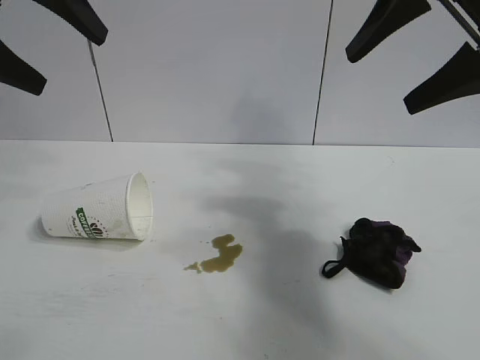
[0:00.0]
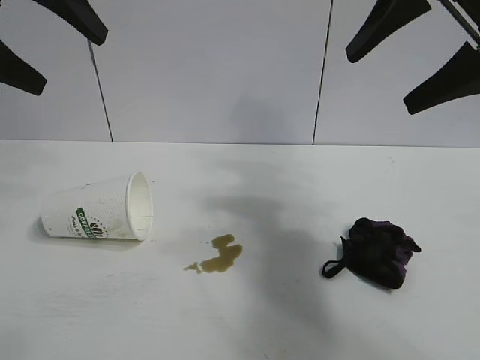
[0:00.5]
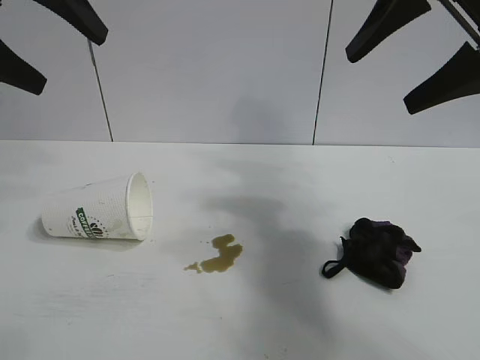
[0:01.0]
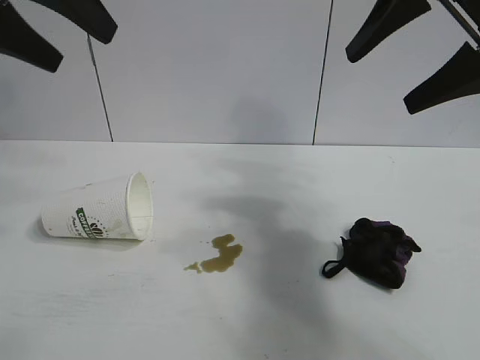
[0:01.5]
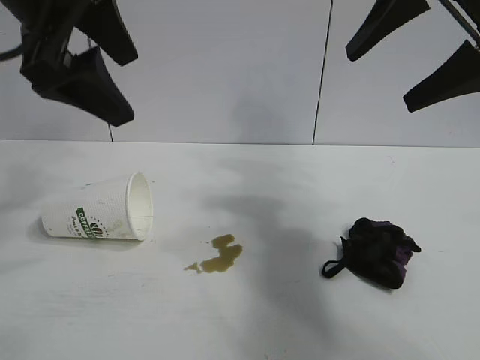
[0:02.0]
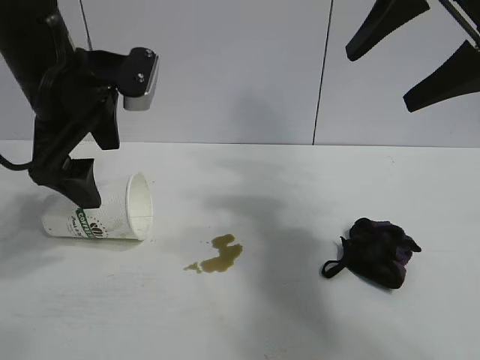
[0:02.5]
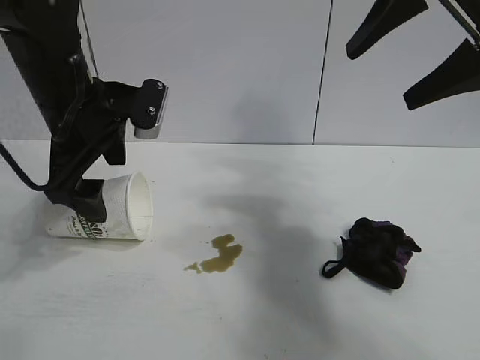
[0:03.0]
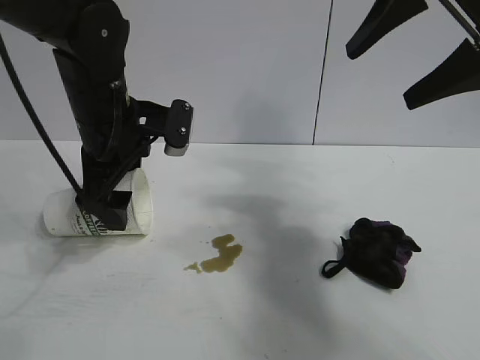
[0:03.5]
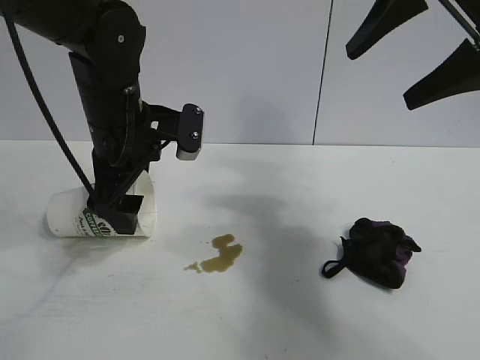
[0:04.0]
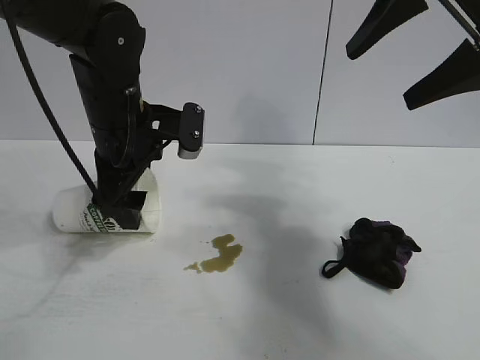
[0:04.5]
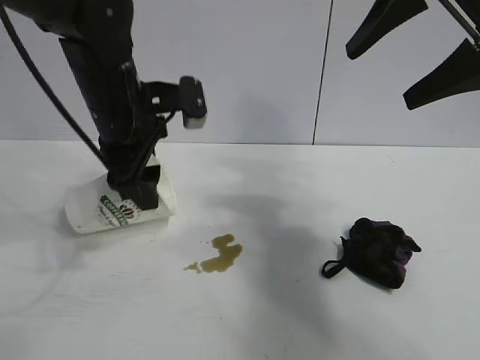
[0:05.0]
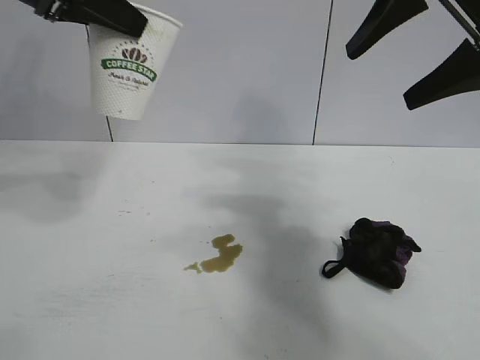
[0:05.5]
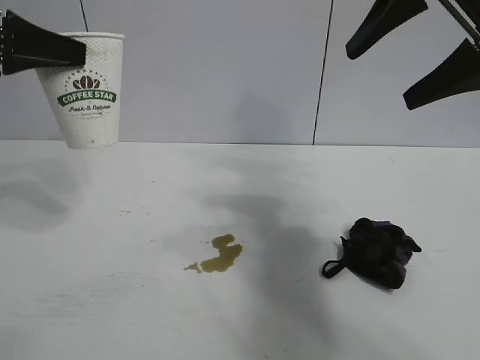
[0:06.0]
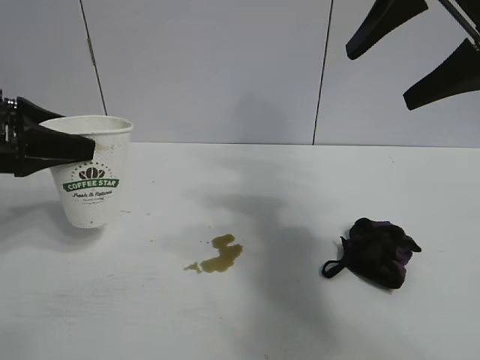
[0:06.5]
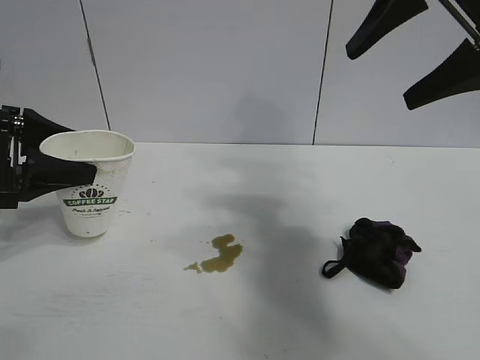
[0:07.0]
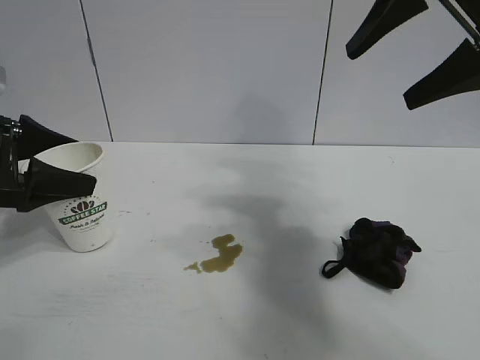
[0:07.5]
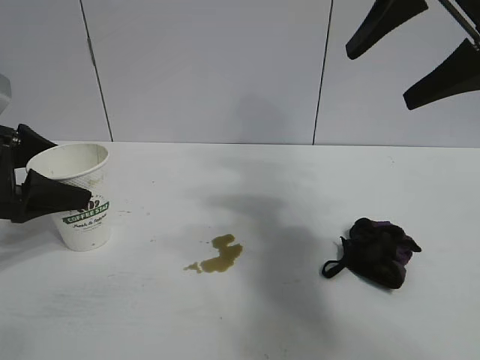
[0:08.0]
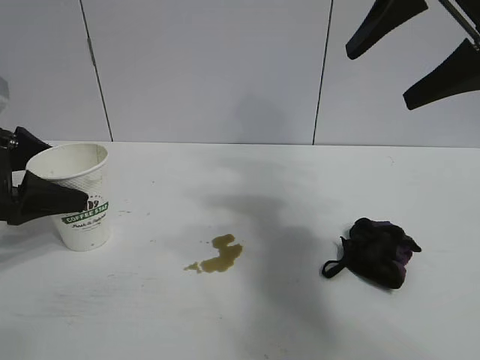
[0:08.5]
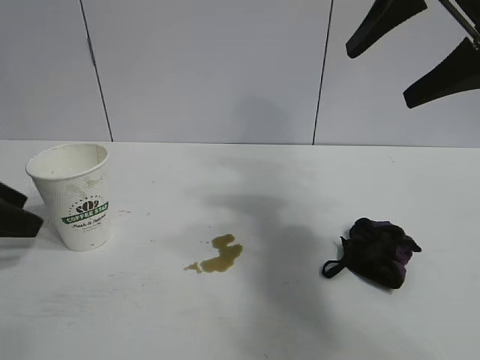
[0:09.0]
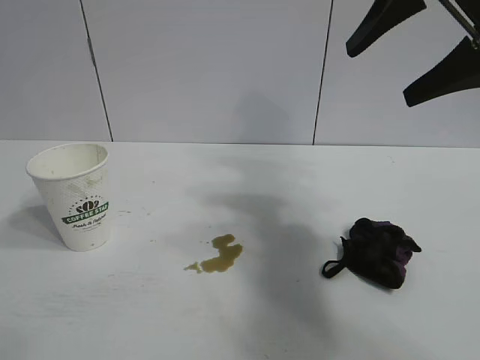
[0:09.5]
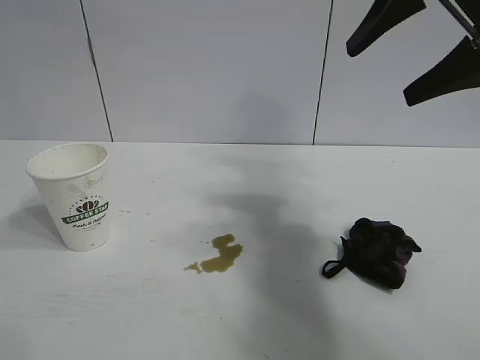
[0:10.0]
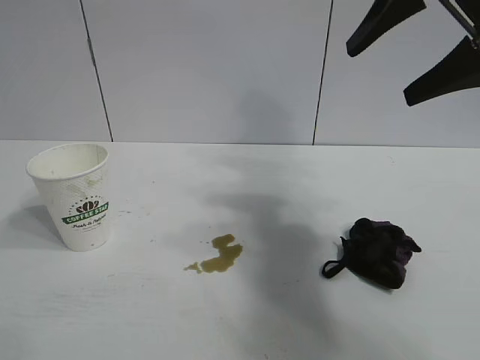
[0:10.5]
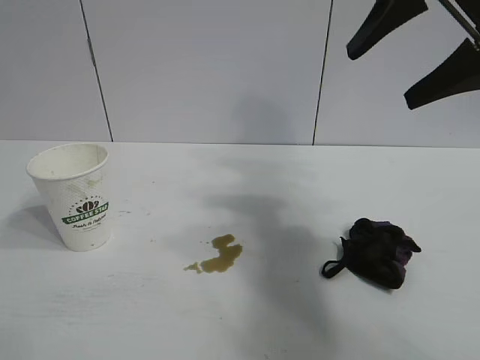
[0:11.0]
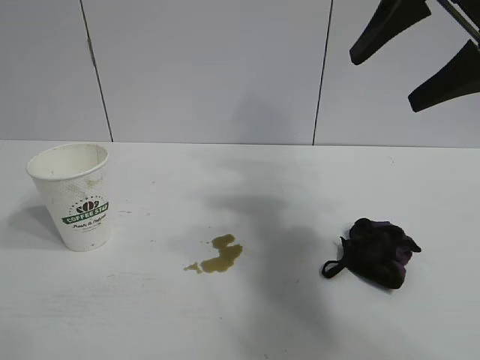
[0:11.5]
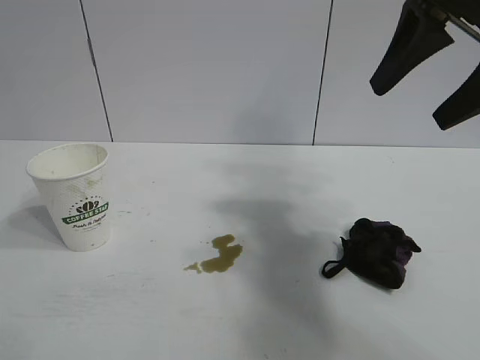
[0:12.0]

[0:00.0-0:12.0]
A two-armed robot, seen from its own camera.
Task of the whole recording: the left gripper pick up the fallen cup and place it upright, the right gripper grasp the black rag and wipe the stain on the table, the right gripper put the black rag back in its original position.
Step, 0:01.0 to 0:04.5: Grasp the paper cup with left gripper.
Step, 0:05.0 to 0:07.5: Stand the paper cup upright with left gripper.

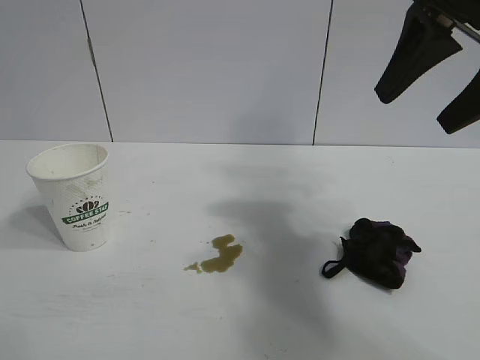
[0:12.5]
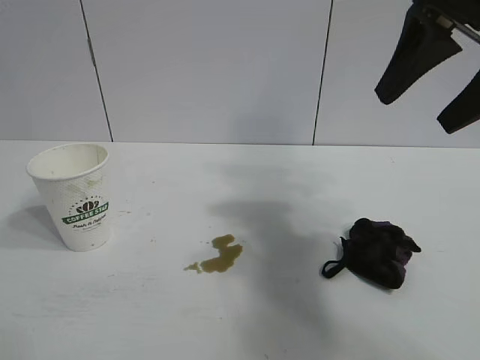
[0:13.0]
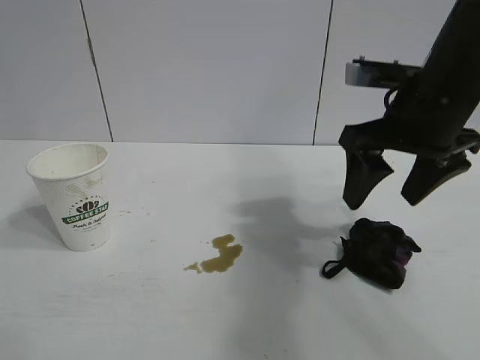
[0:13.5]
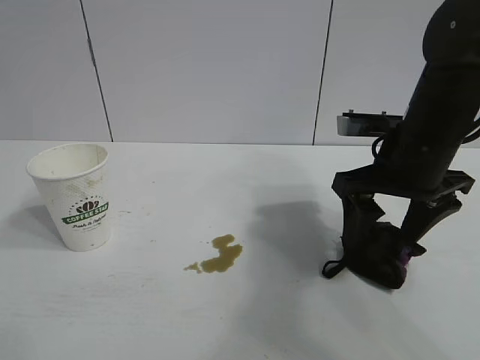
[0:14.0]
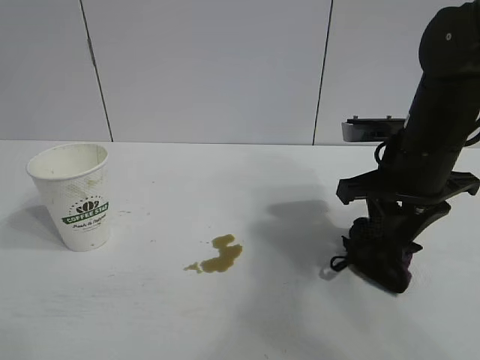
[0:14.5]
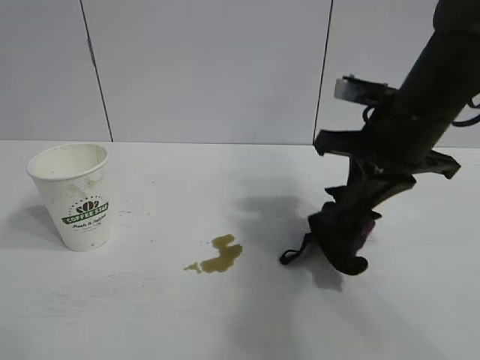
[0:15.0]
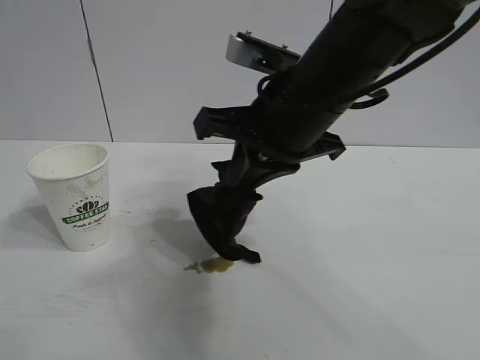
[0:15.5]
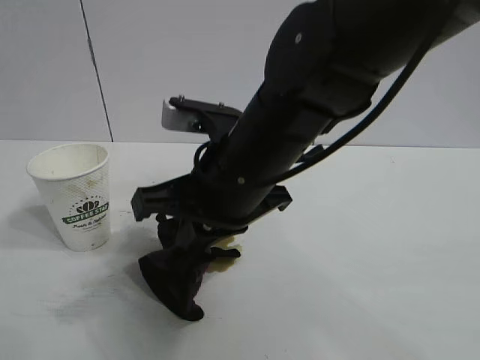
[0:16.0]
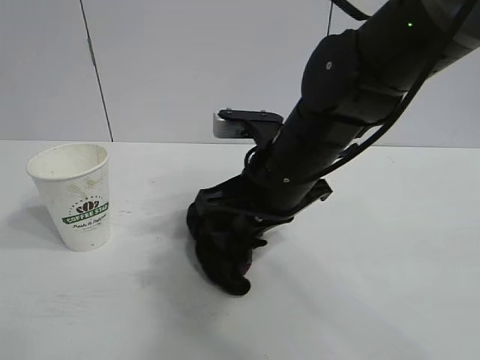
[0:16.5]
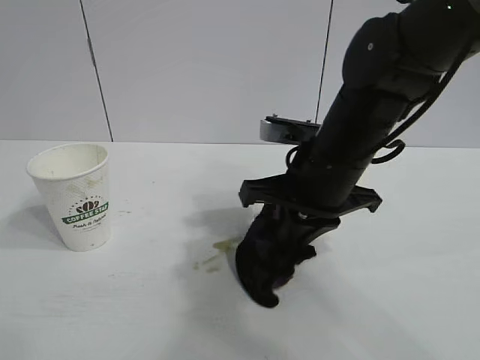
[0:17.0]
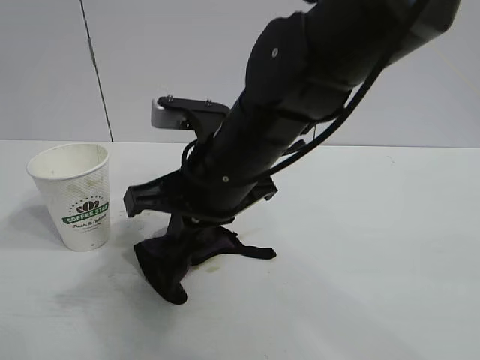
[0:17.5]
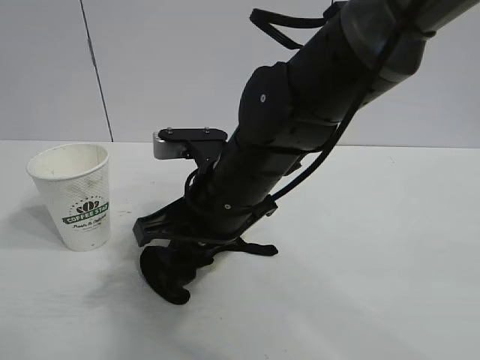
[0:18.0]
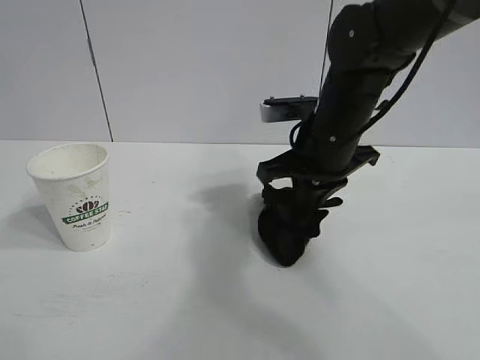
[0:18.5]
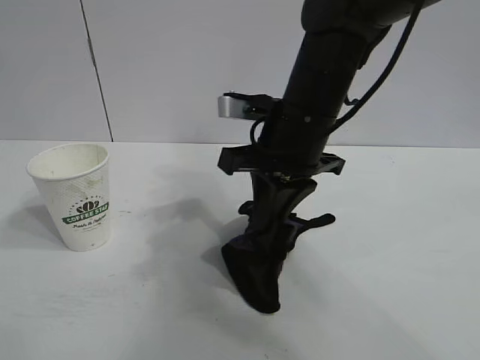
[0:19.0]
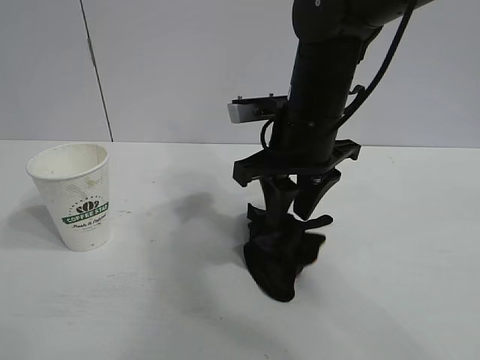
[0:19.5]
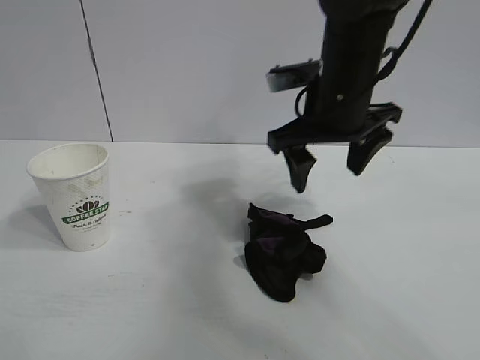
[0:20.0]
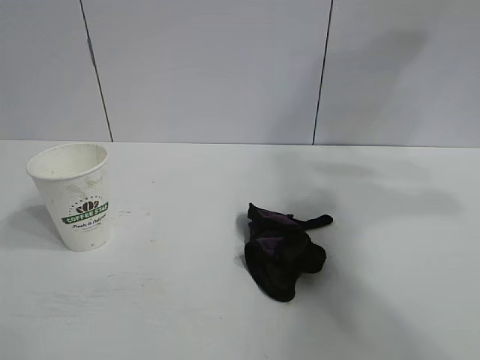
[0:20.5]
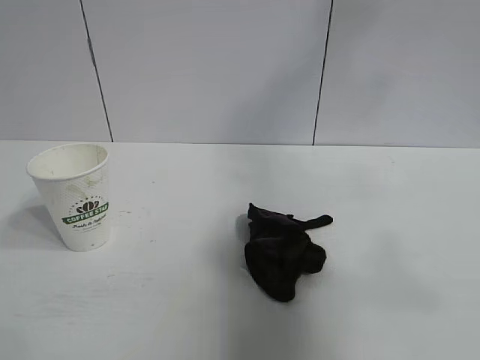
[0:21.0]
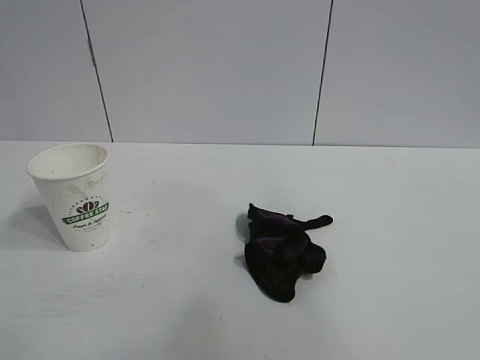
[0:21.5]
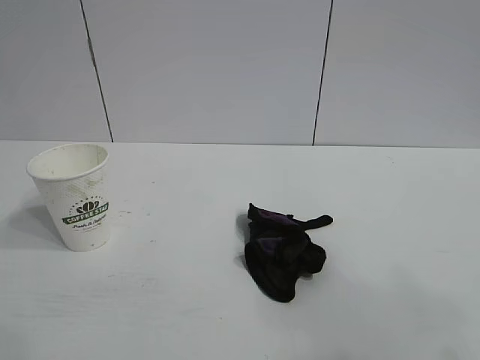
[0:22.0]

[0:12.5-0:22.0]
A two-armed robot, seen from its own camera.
Task of the whole recording: the left gripper pick up the fallen cup and place it upright, the right gripper grasp the black rag and wipe the stain on the table, the right gripper put the black rag back in its original position.
Step, 0:12.5 to 0:14.5: Grasp the rag with right gripper.
Step, 0:15.0 to 0:18.0: Wipe the stains off the table with the rag with right gripper.
Step, 0:18.5 to 0:19.5: Place the rag on the table with right gripper.
